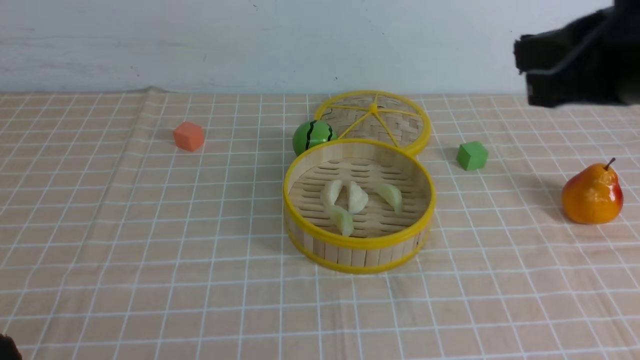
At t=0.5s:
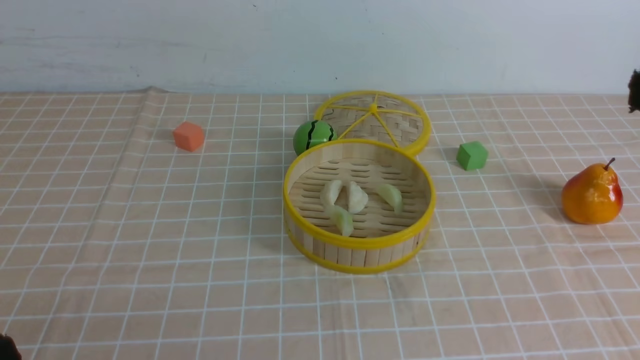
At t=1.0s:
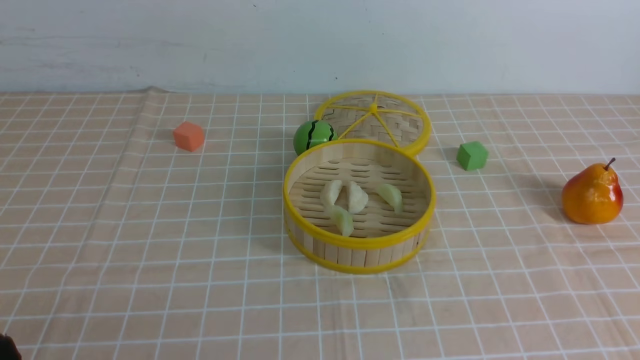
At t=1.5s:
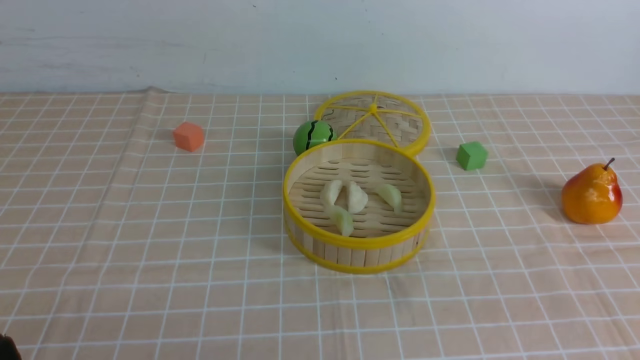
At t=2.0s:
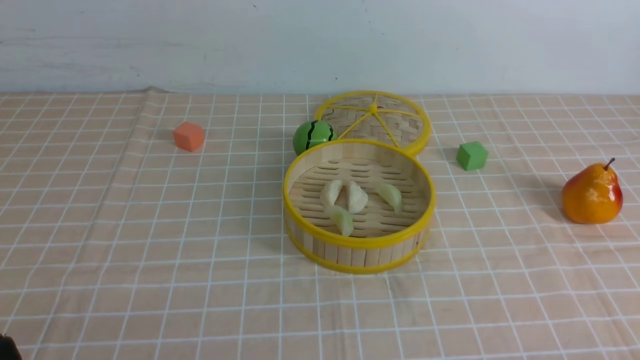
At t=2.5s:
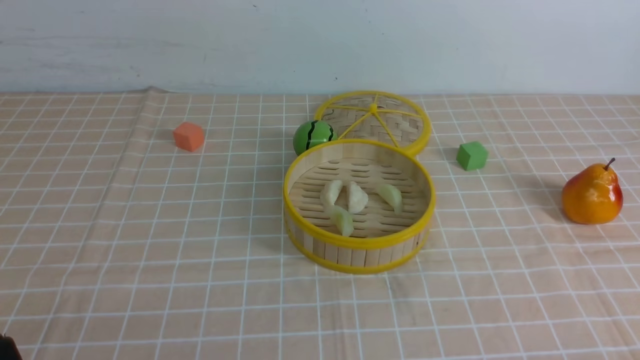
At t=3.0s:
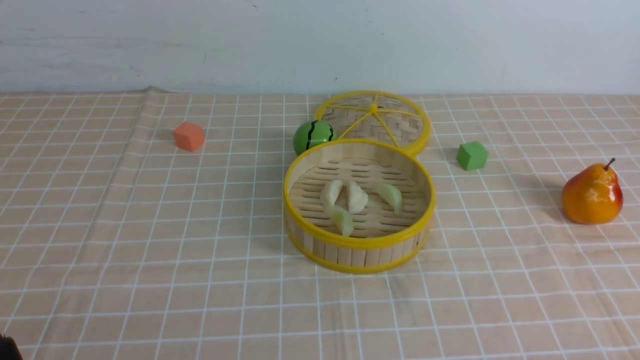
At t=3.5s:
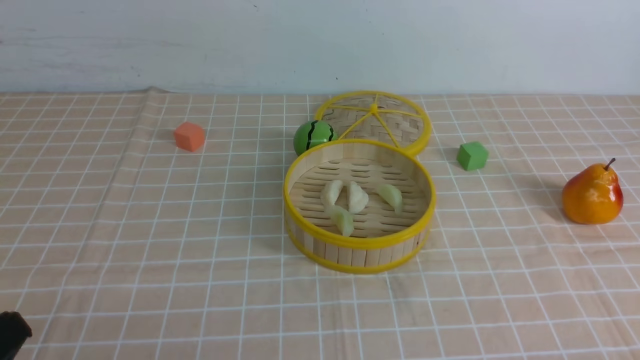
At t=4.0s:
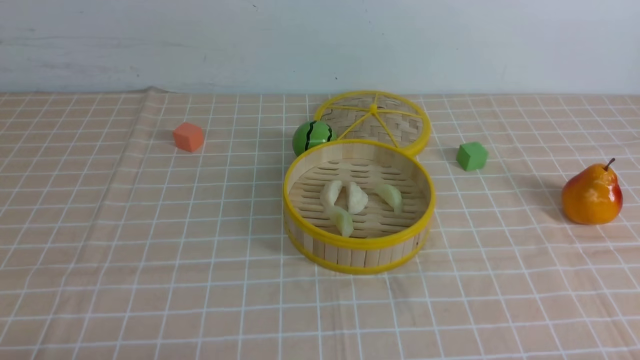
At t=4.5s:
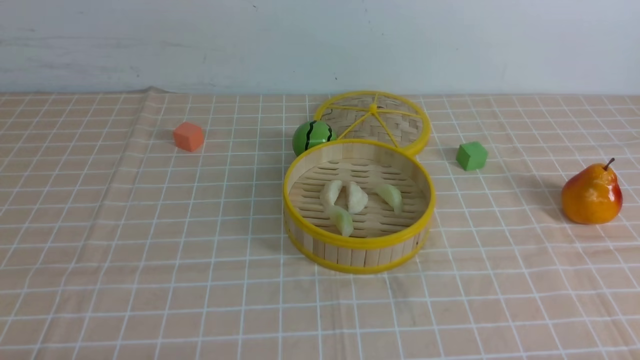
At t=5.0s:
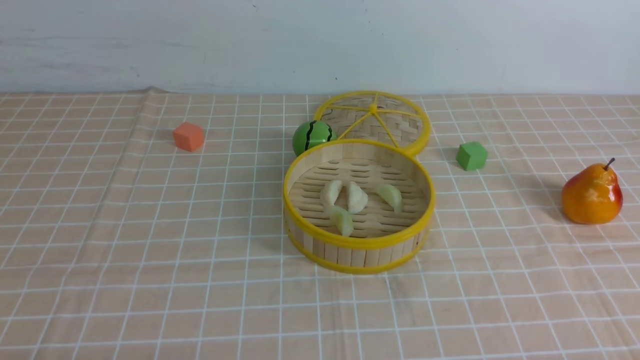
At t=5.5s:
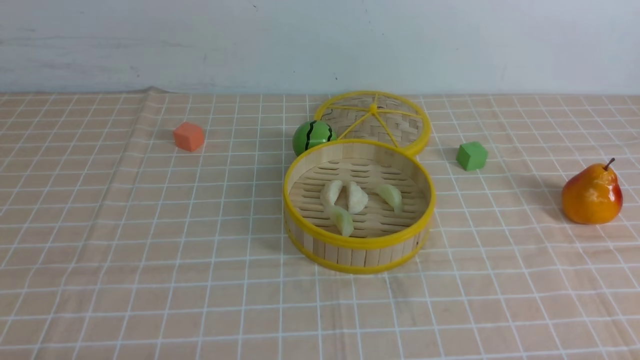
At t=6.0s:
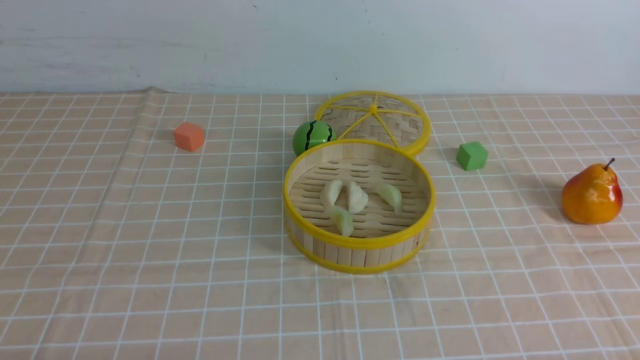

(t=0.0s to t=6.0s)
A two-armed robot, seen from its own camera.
Task of the whole recording: put the dumplings into the steamer on the table with the brown tablecloth.
t=0.0s - t=2.0s: The right gripper moves downward, backward and to the right, approximately 30 cm.
